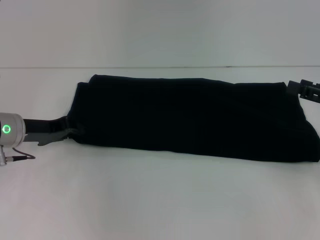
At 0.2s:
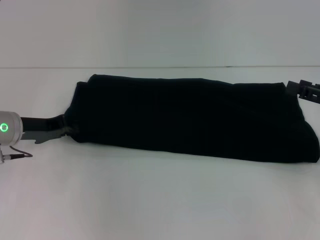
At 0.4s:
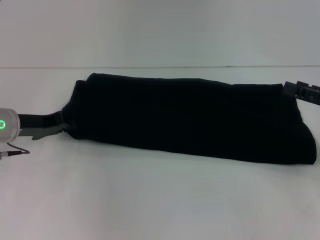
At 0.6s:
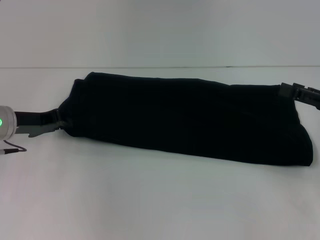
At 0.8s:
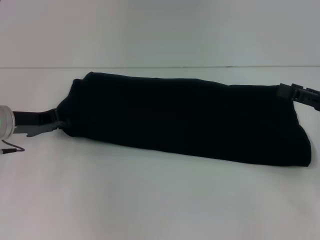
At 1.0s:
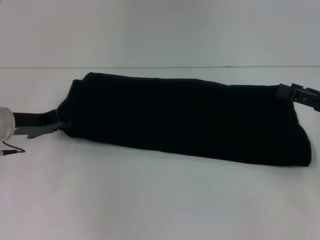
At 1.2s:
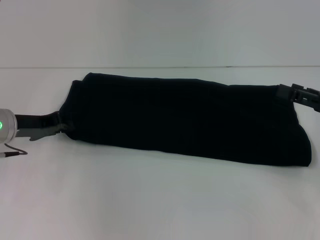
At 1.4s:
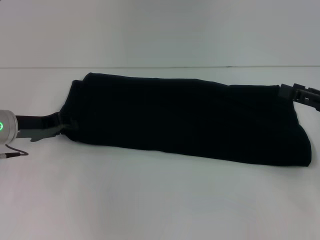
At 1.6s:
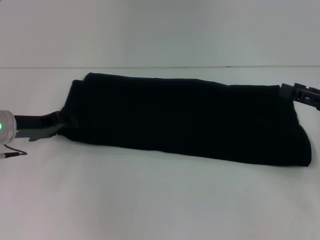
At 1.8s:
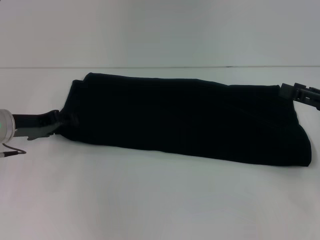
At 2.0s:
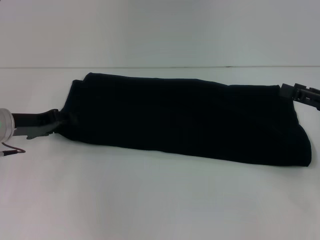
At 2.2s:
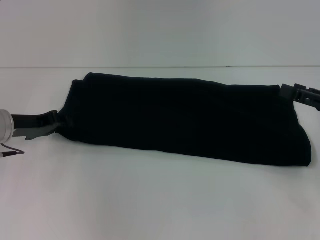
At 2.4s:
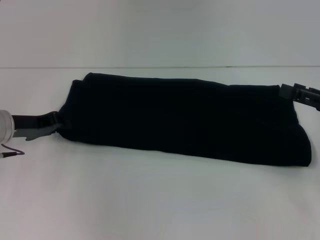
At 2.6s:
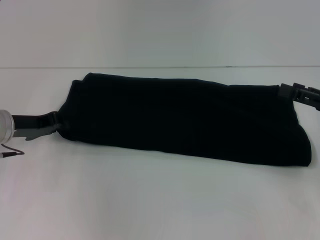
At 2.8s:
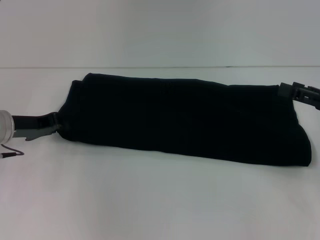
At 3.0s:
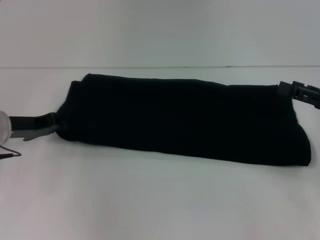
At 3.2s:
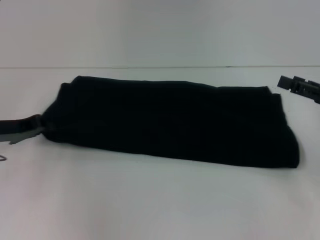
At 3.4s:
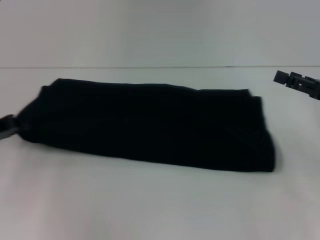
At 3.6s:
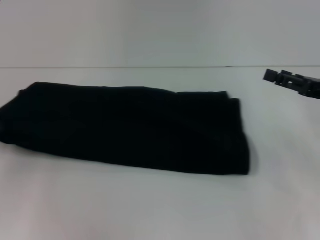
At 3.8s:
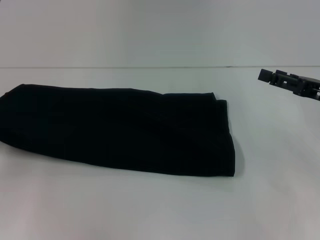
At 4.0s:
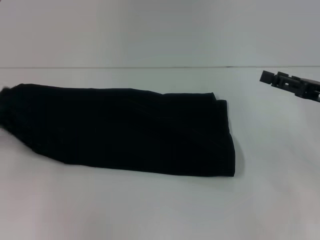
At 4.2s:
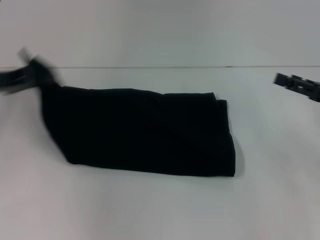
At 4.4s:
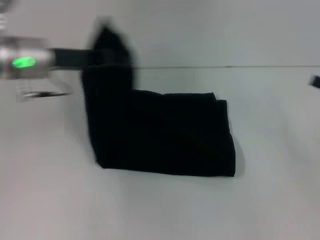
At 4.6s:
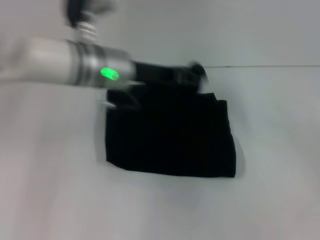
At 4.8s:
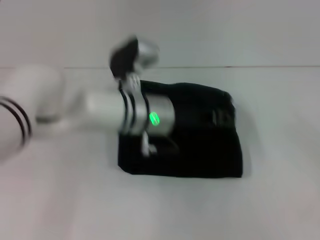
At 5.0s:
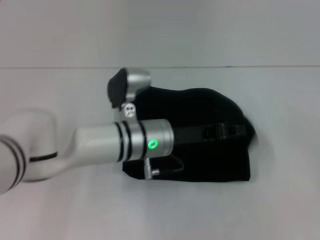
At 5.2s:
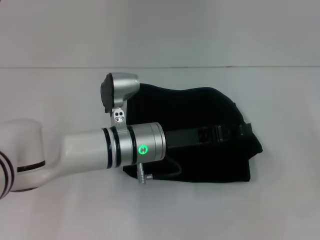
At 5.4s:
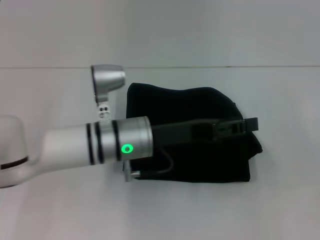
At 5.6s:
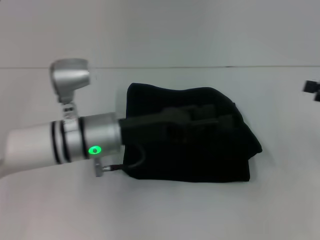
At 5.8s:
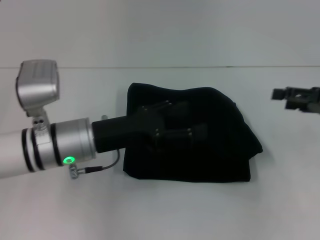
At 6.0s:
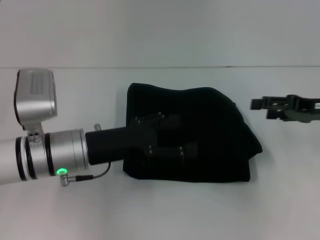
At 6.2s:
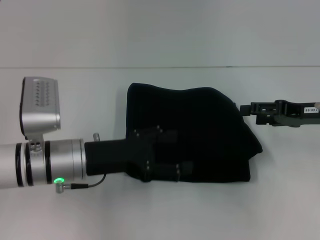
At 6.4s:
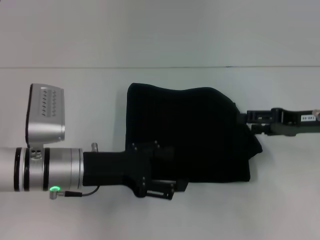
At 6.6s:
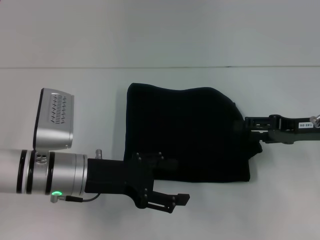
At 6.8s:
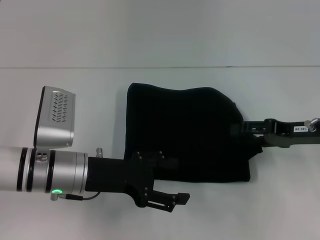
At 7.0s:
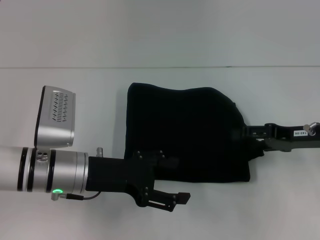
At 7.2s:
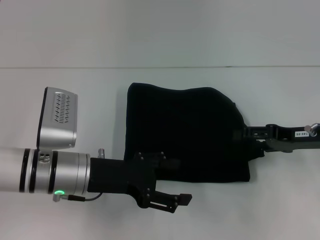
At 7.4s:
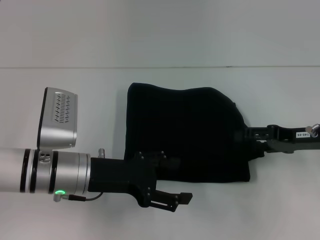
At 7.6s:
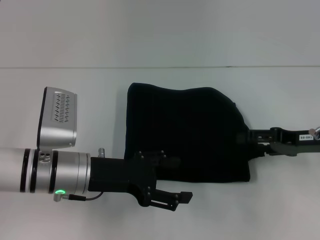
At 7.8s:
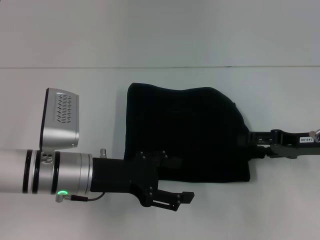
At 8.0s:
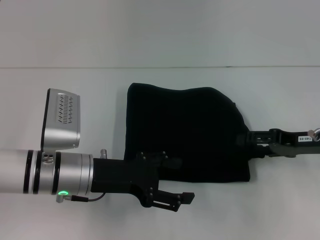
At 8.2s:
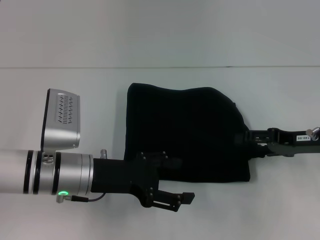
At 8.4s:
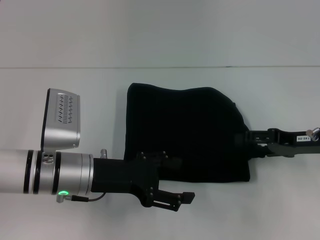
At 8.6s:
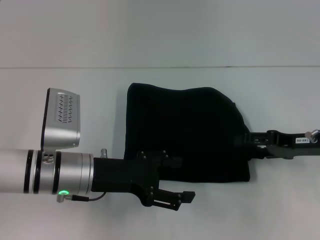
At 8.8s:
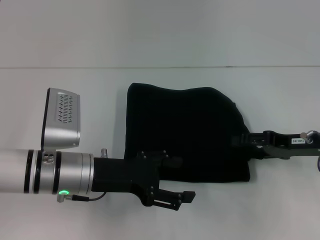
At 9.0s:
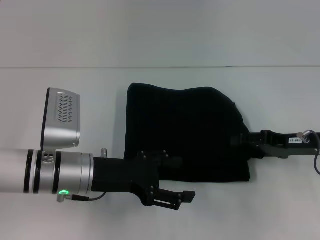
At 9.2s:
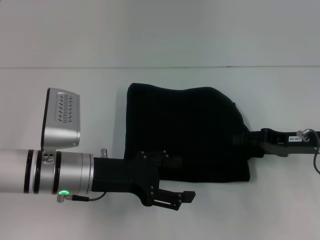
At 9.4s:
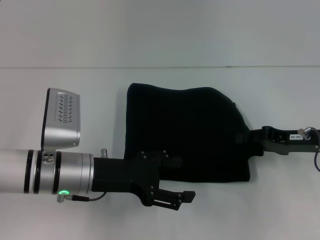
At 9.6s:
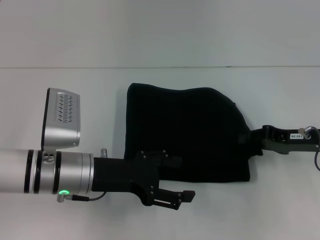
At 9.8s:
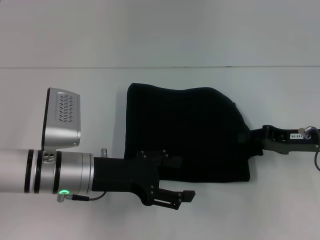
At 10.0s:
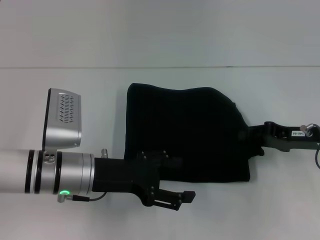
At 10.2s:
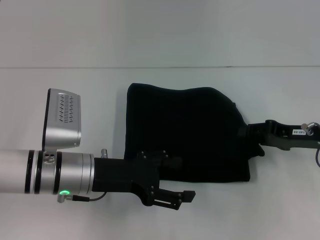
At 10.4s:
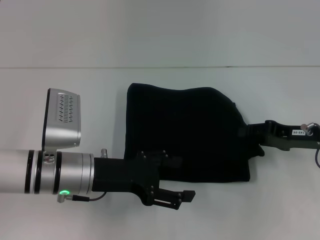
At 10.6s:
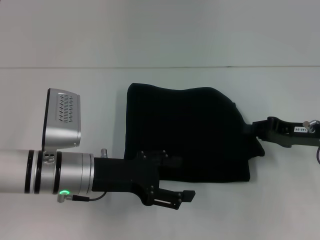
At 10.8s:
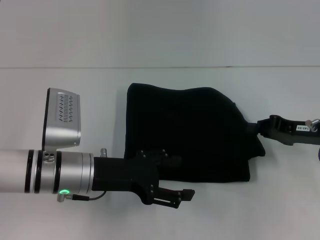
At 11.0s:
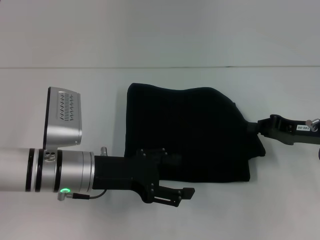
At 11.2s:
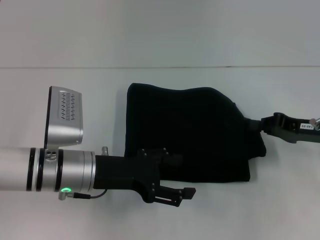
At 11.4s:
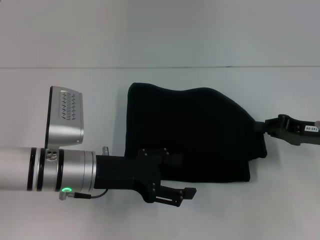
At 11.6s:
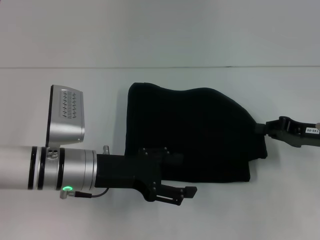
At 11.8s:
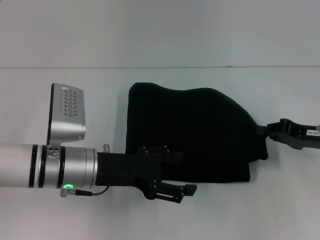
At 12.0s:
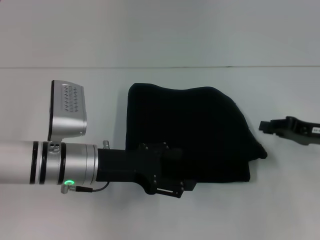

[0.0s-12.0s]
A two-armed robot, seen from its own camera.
Step, 0.0s to 5.2s: Fold the clothes with your left hand.
0.0s to 1.6s: The grippers move only a little.
1.6s to 3.0s: Neither gripper changes place.
3.0s to 4.4s: The left gripper heads upward and to the right, covering about 15 cm.
4.4s to 6.0s: The left gripper is displaced downward and backward by about 15 cm, travels to the right and back again, about 15 cm each way, and opens up, while the right gripper heads to the left and forward, covering about 10 cm.
6.0s to 9.0s: The grippers move only a little.
9.0s to 10.4s: The right gripper closes its fingers.
10.4s to 12.0s: The grippers stay close to where they were, moving slightly.

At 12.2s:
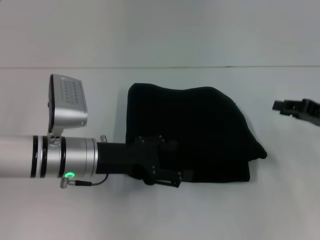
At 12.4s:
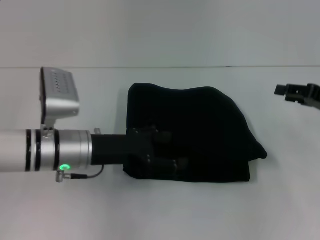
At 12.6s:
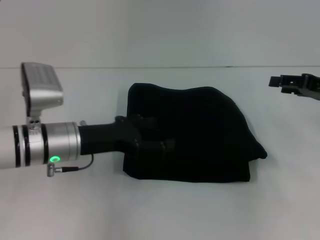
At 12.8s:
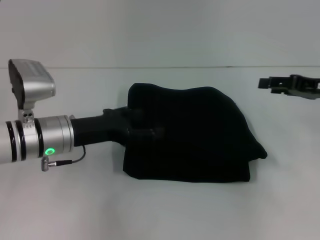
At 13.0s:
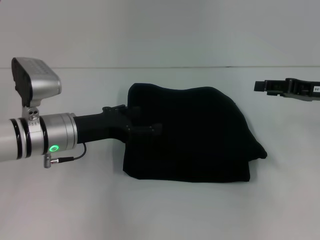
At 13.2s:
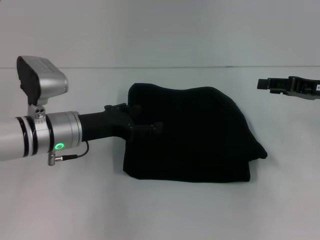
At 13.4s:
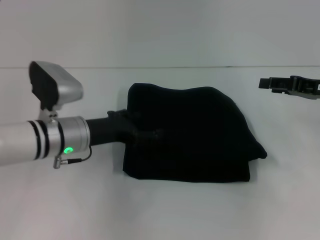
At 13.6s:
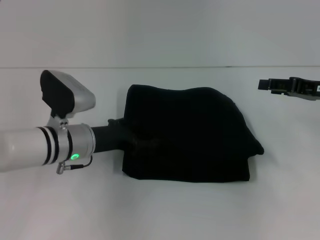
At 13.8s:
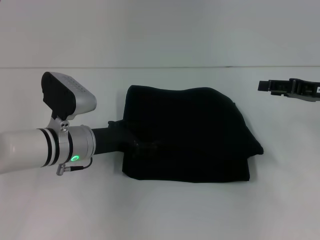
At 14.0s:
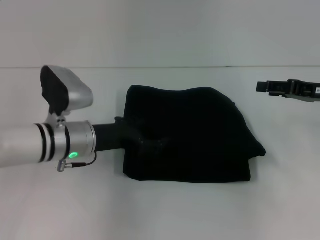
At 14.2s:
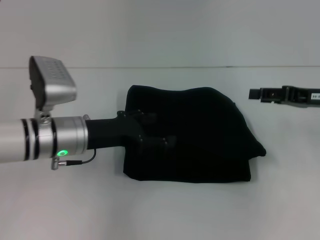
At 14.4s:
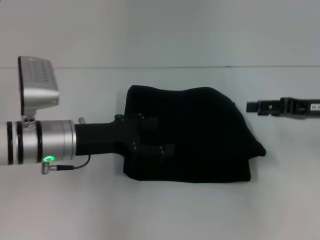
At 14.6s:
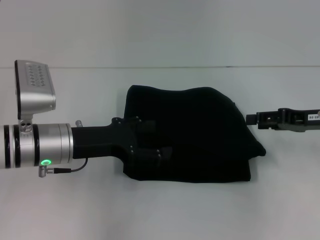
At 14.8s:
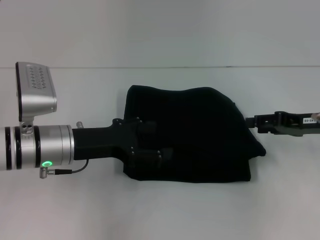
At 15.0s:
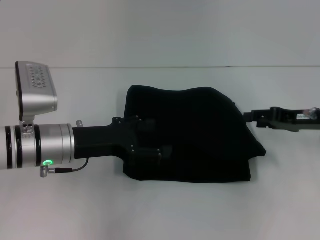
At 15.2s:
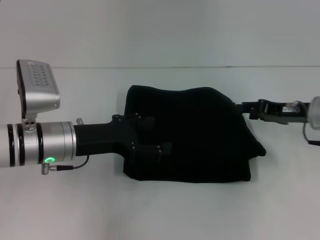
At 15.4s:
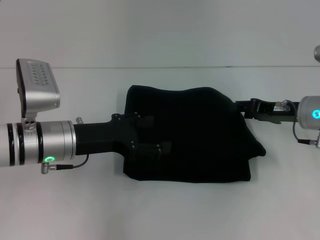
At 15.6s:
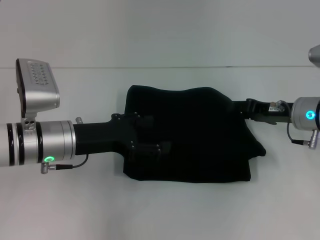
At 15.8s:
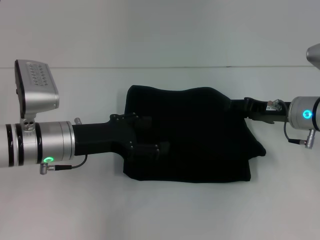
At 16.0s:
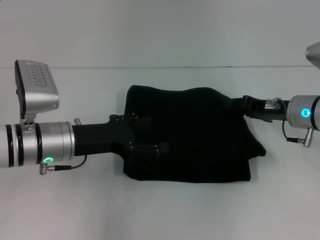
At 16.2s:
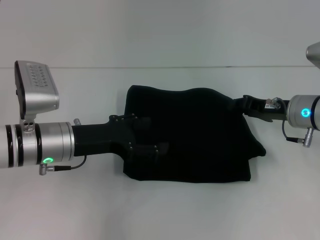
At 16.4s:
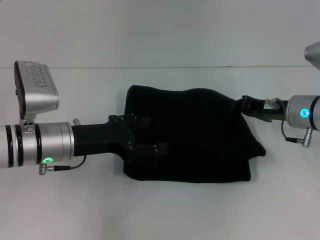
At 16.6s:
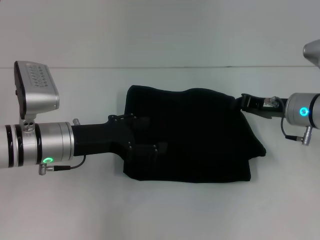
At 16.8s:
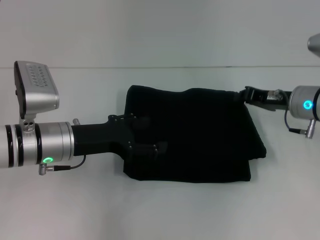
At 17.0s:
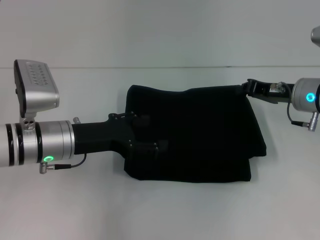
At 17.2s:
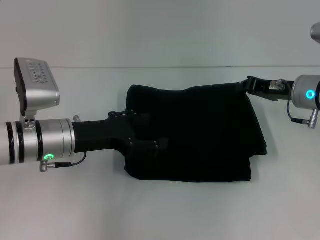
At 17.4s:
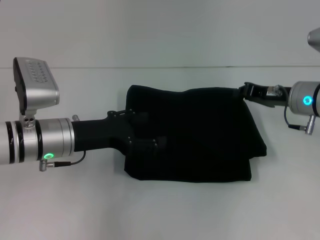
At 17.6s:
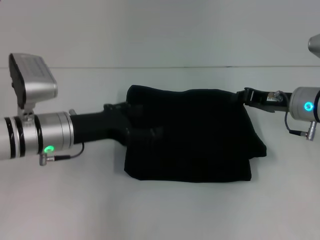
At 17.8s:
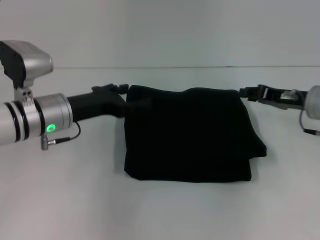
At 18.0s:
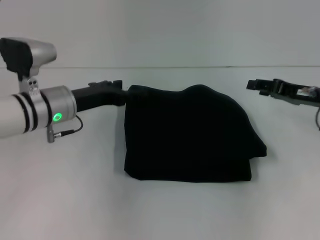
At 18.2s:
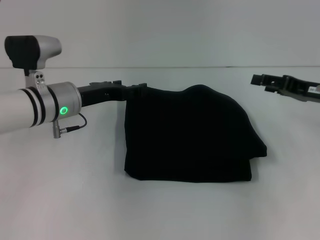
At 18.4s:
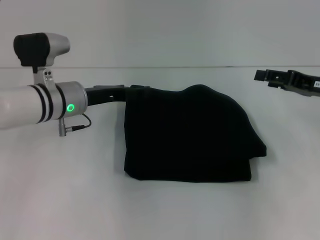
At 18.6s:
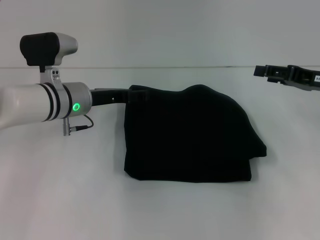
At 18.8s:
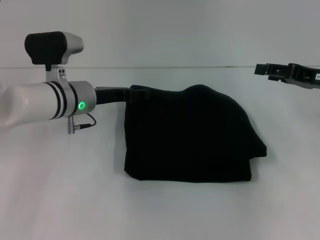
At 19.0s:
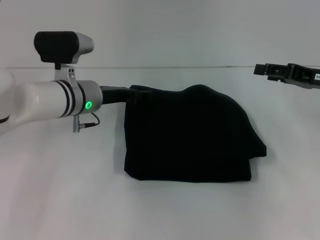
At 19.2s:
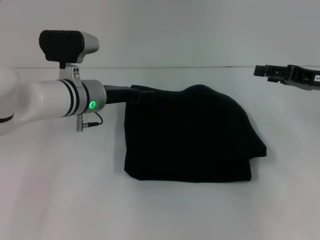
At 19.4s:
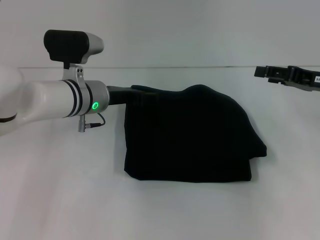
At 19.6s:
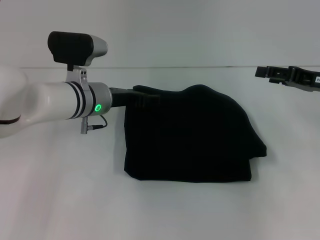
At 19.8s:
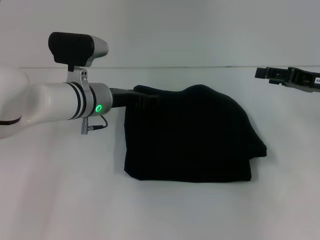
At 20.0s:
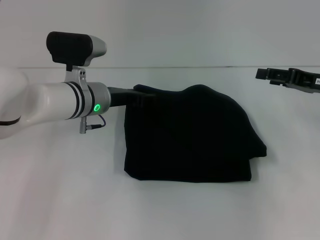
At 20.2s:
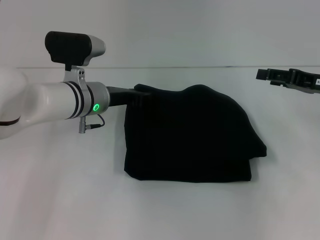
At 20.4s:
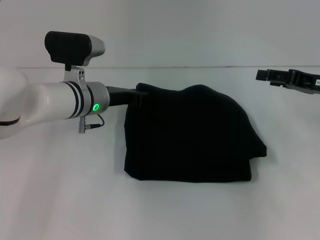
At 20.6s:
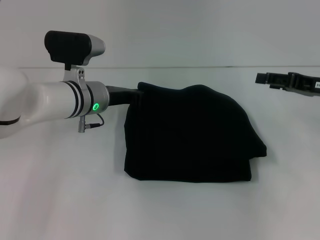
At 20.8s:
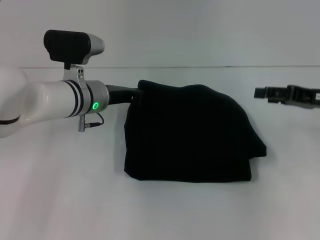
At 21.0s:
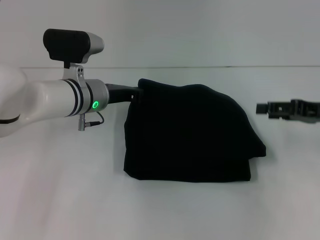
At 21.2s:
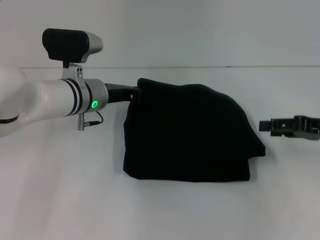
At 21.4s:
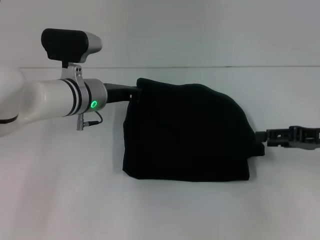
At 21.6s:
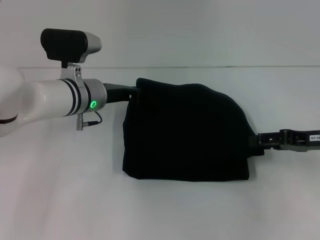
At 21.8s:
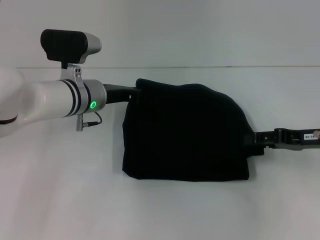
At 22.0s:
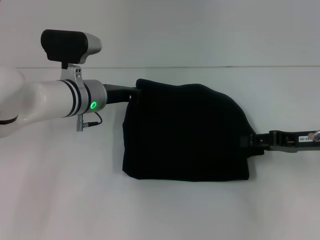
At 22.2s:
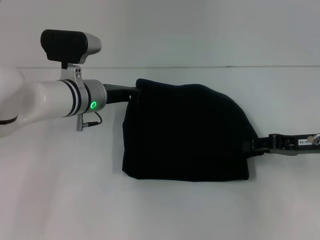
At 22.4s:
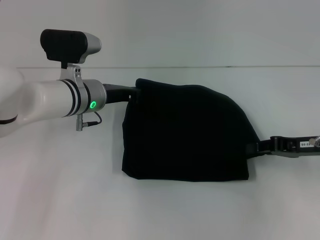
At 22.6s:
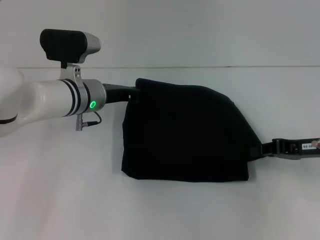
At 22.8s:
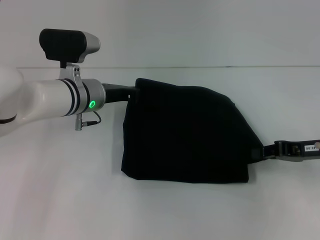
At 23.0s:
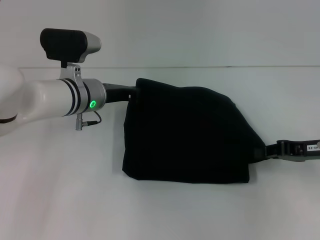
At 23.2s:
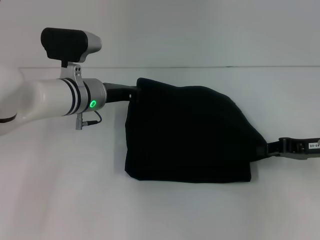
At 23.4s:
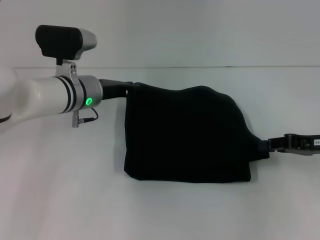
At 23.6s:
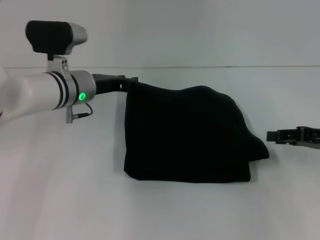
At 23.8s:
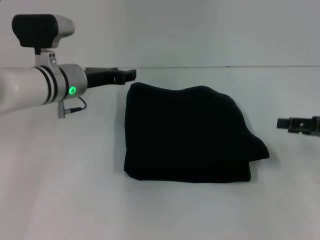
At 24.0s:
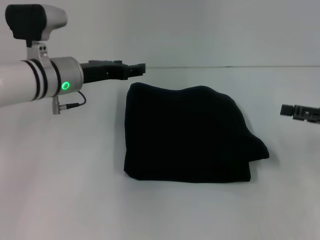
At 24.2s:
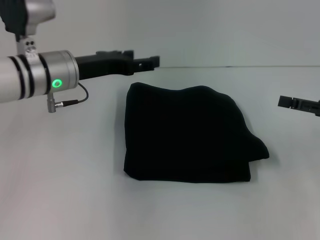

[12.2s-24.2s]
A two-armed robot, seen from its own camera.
12.2s to 13.8s: The right gripper changes place by some 5 cm, and opens up.
13.8s to 15.2s: The left gripper ends up roughly 5 cm from where it was. Meanwhile the right gripper moves about 5 cm.
15.2s to 16.6s: The right gripper closes.
16.6s to 18.2s: The right gripper is displaced to the right by approximately 5 cm, and opens, while the left gripper heads forward, covering approximately 5 cm.
18.2s to 19.8s: The left gripper moves to the right, about 5 cm.
19.8s to 21.2s: The left gripper closes up.
21.2s to 22.6s: The right gripper closes up.
22.6s to 24.2s: The right gripper heads to the right, covering about 5 cm, and opens. Meanwhile the left gripper travels upward by about 5 cm, and opens up.
